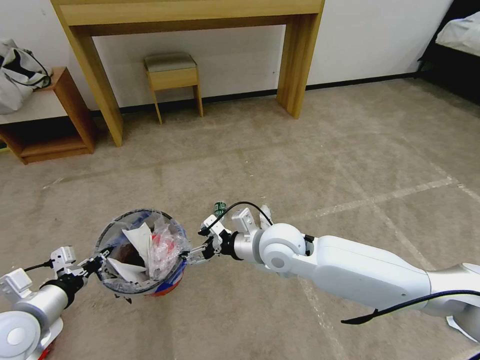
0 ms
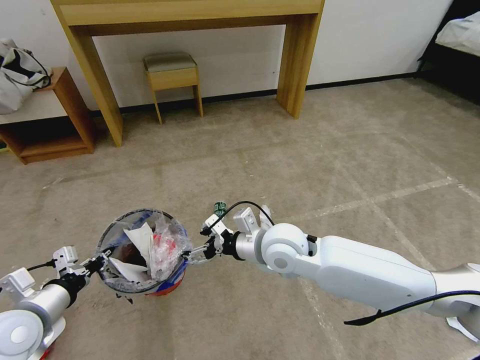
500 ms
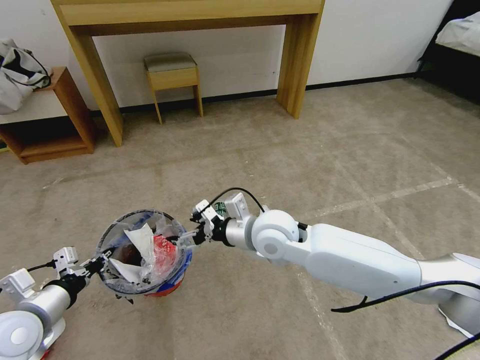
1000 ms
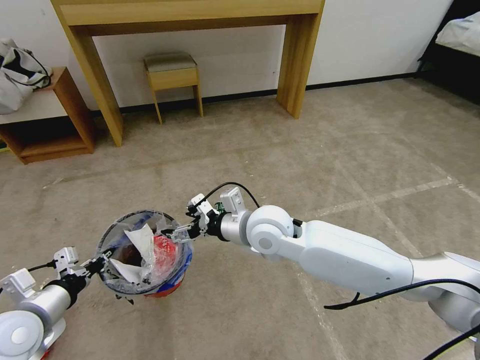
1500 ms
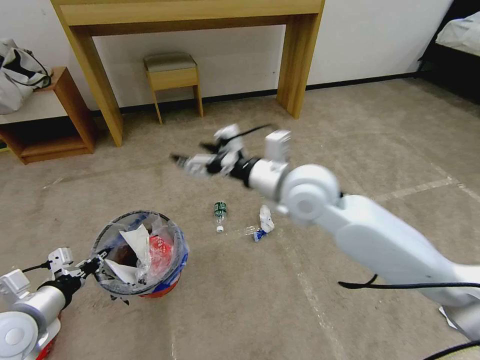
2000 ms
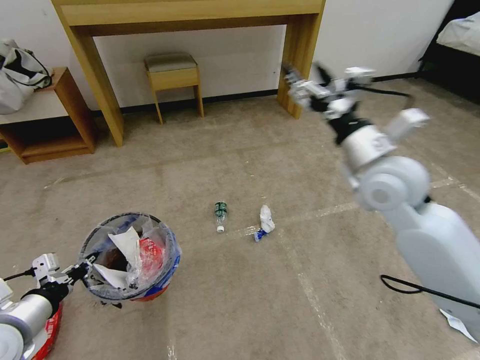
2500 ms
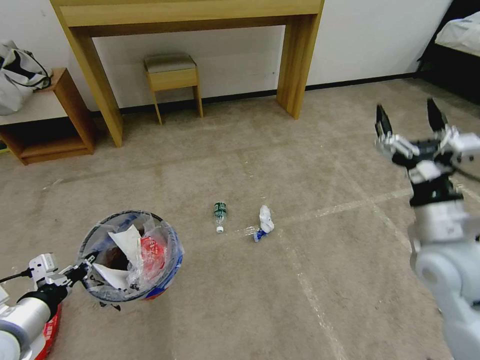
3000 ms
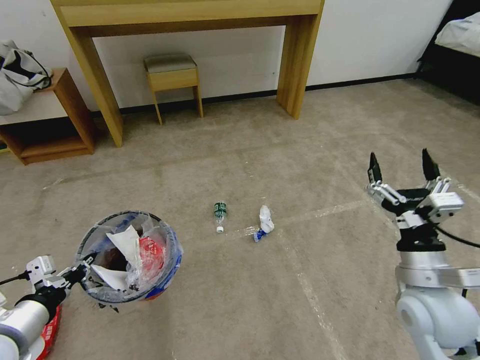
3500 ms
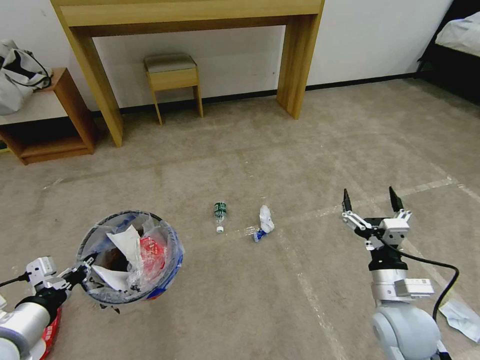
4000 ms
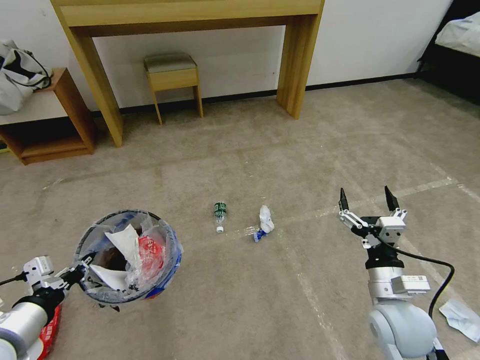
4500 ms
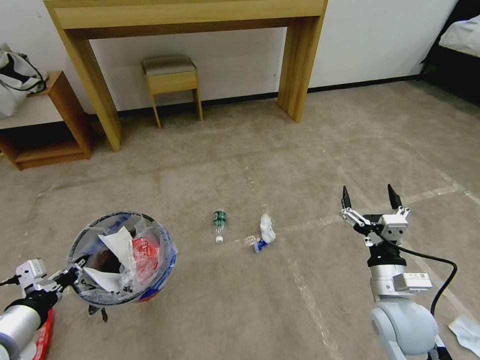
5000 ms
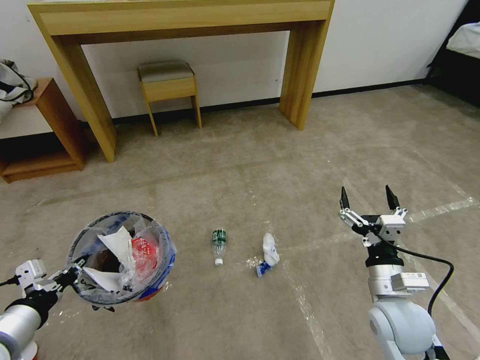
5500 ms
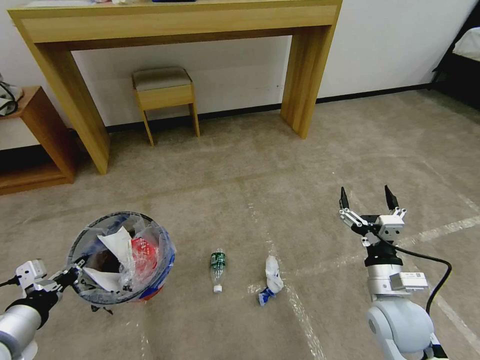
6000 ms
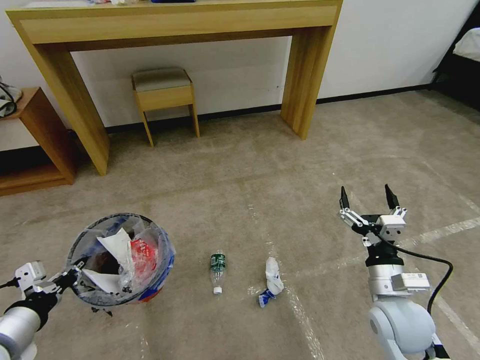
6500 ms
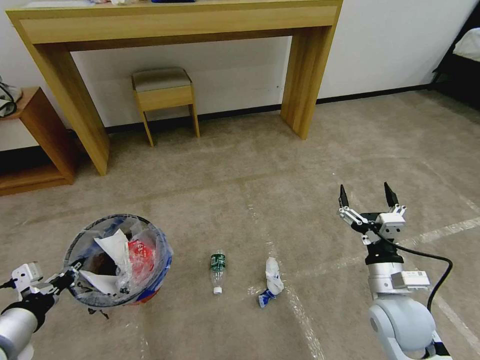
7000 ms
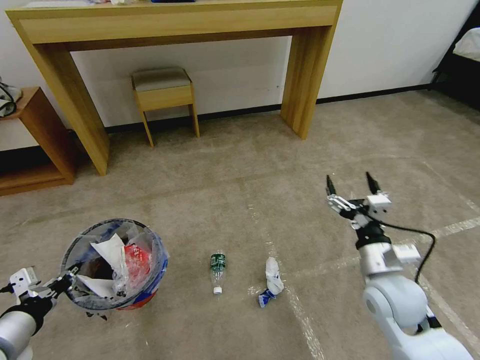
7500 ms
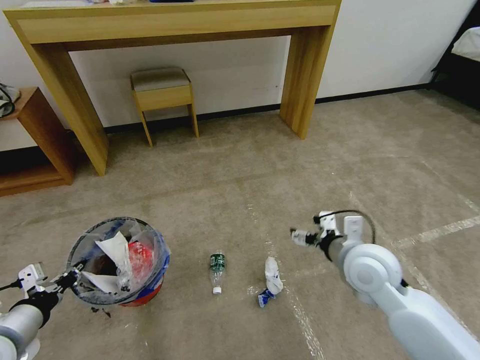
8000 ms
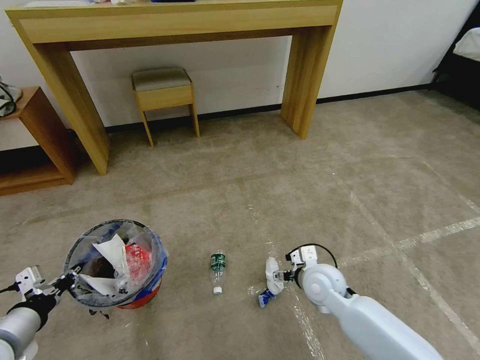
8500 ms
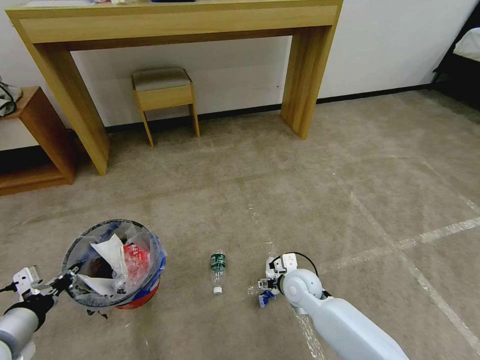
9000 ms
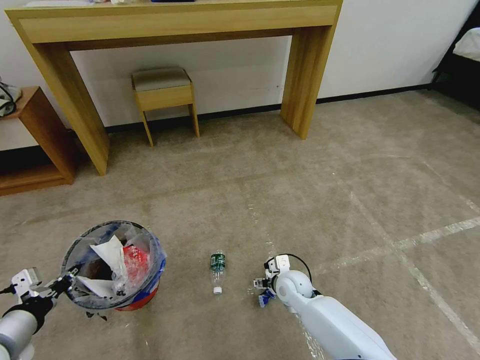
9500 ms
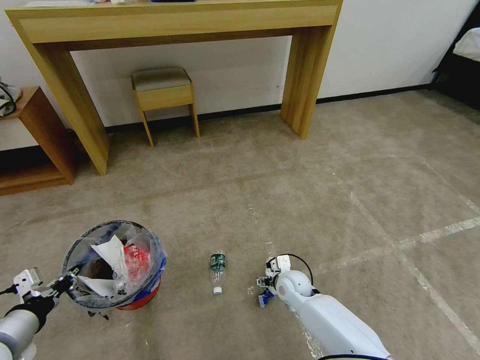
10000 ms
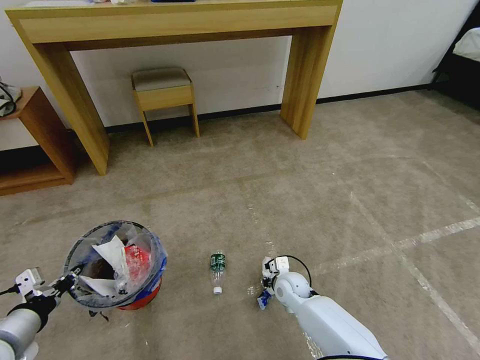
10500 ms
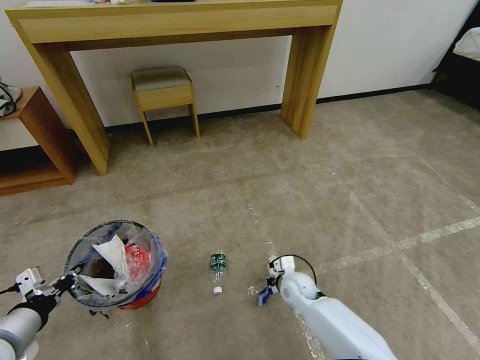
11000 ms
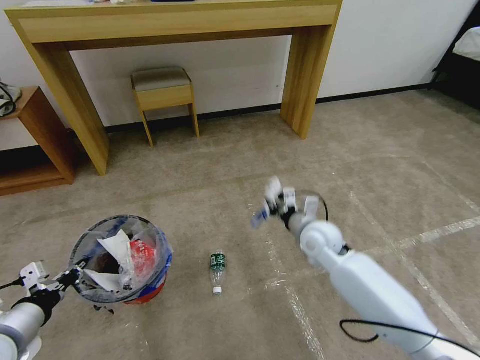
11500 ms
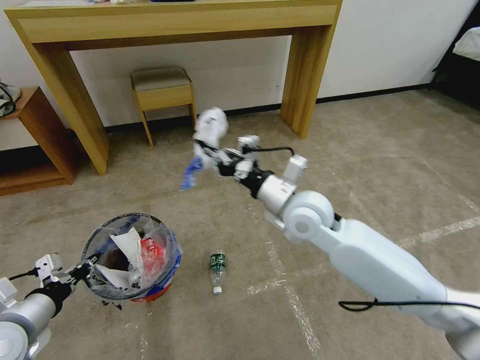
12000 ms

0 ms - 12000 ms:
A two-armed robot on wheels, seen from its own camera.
Task of the whole recording: Pick up the trash bin and place the garbage on the floor into it.
0 ms - 2000 ms: The right gripper is displaced upward by some 15 cm.
2000 ms - 4000 ms: The right gripper heads downward, to the right and backward, covering some 30 cm. Meanwhile the left gripper shifts by roughly 5 cm.
6000 ms - 8000 ms: The right gripper is displaced forward and upward by approximately 10 cm.
8000 ms - 10000 ms: The right gripper moves downward, roughly 25 cm.
10000 ms - 12000 ms: The right gripper moves upward, roughly 30 cm, and closes up.

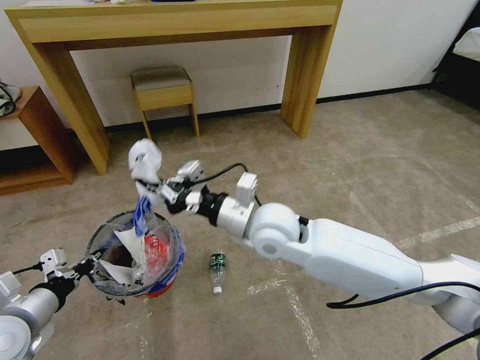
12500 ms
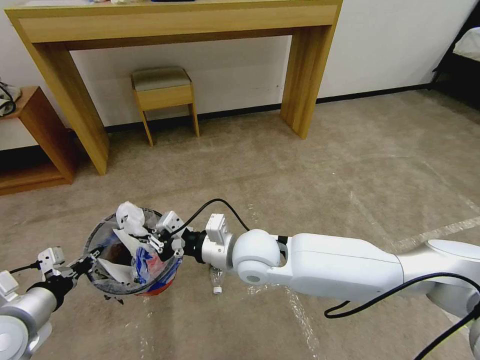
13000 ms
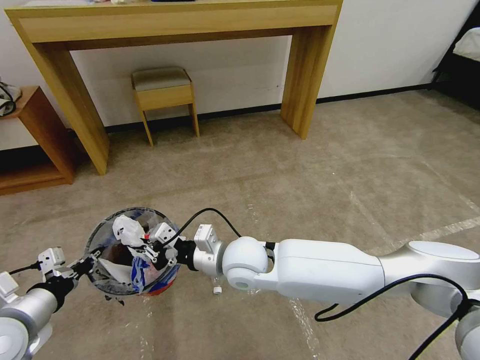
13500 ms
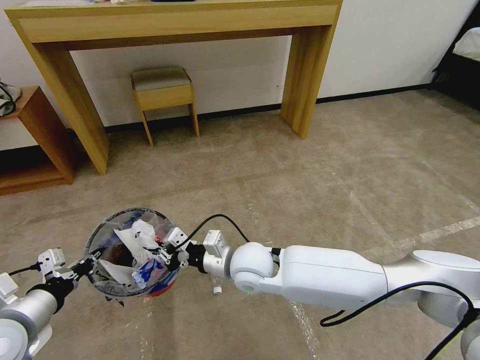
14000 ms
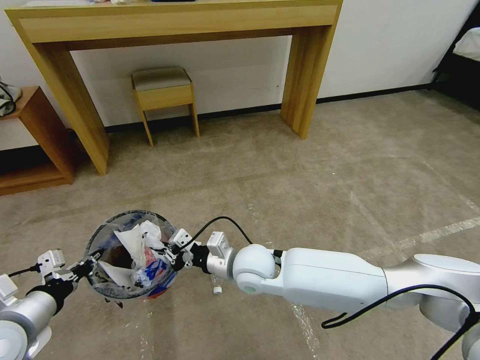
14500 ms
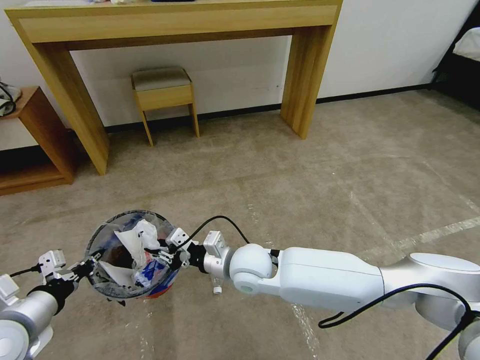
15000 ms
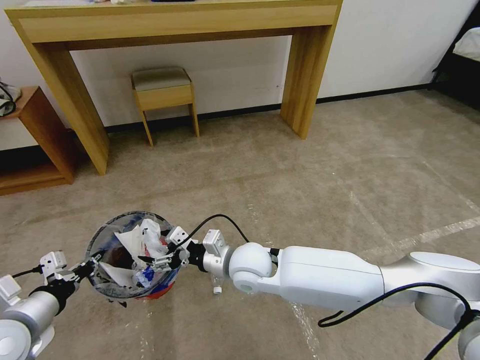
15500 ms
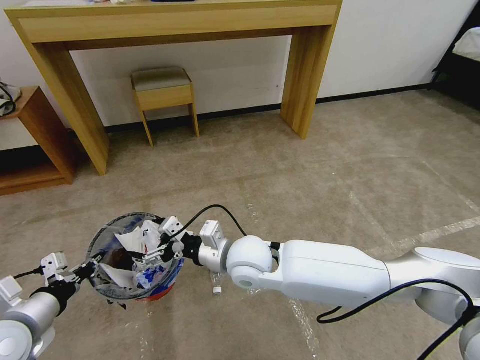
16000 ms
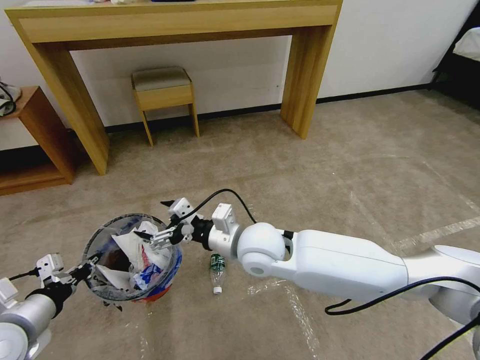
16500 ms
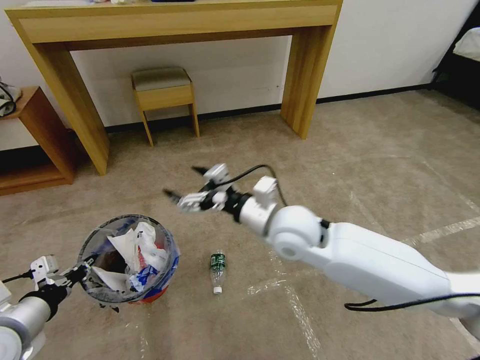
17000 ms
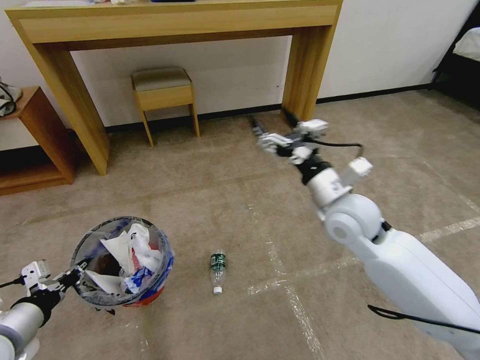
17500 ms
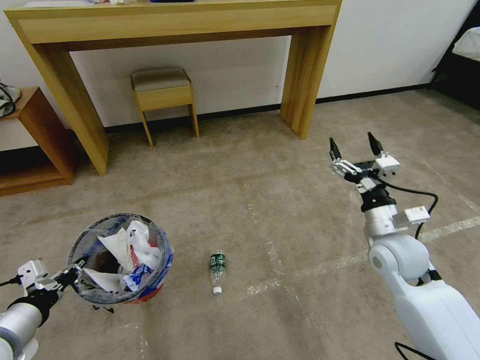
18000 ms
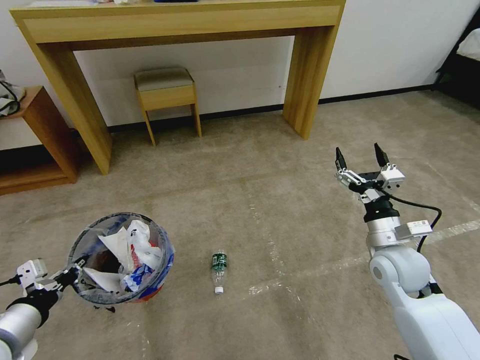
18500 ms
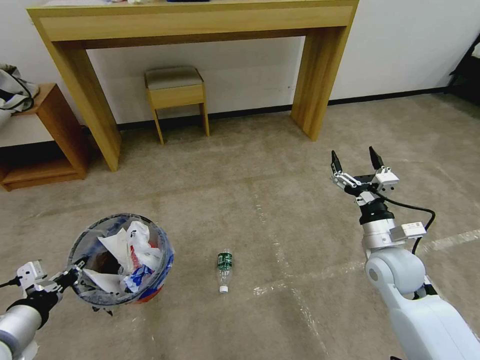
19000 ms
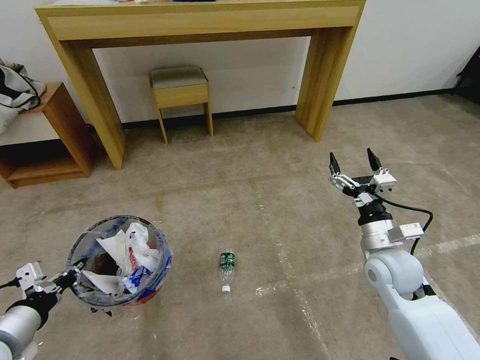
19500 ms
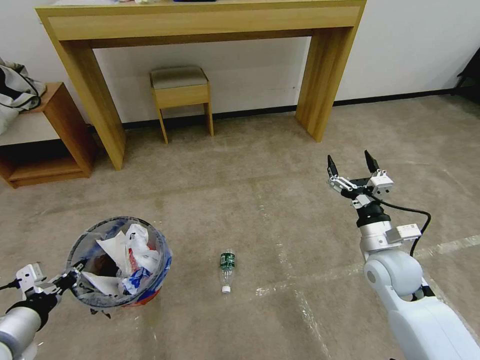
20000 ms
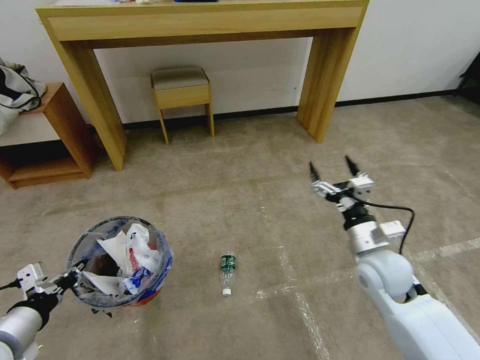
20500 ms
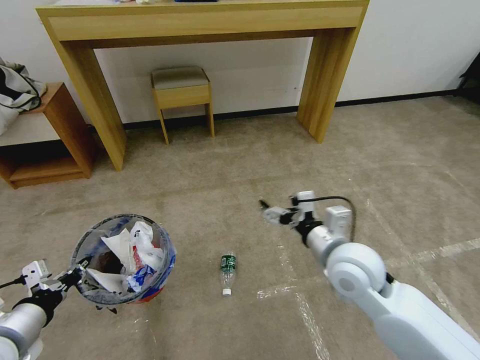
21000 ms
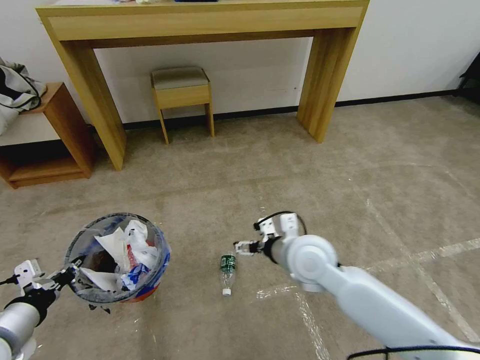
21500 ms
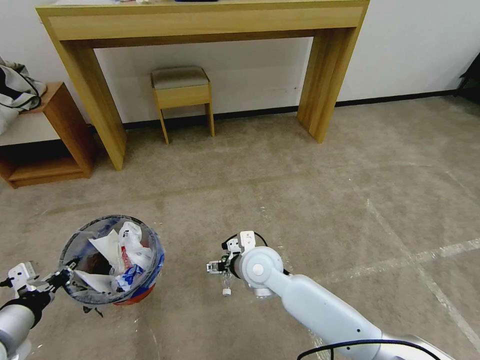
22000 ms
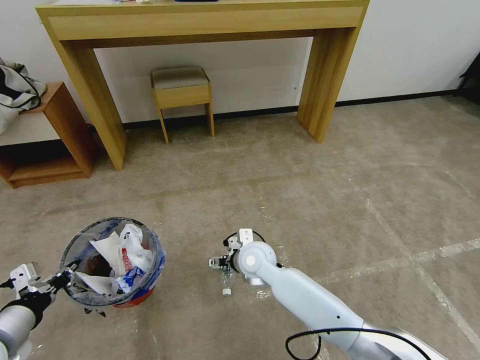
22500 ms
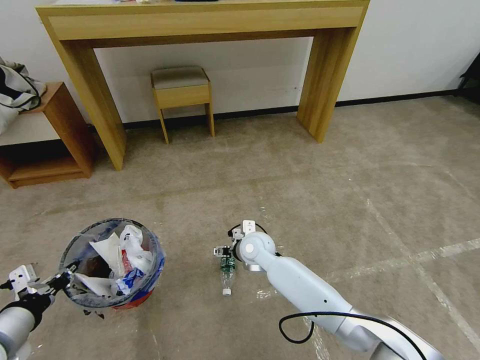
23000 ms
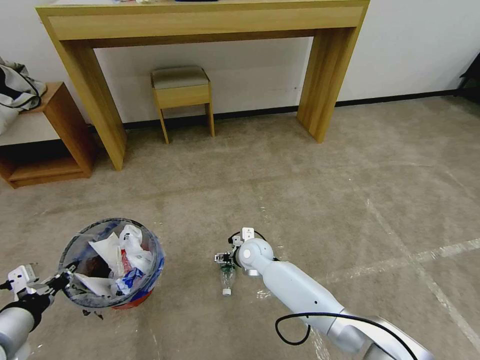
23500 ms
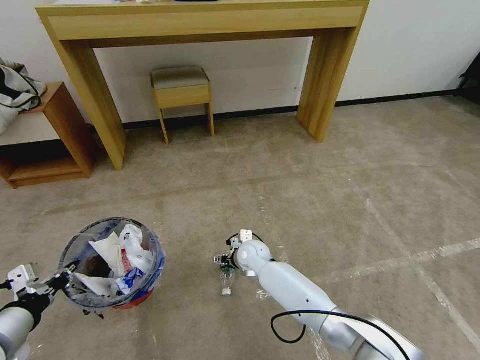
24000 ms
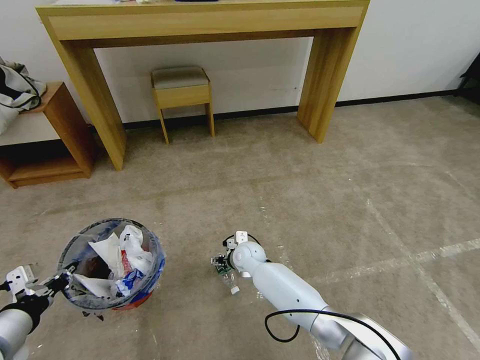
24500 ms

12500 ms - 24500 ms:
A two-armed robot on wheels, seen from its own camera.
Task of the whole recording: Pick up the trash bin and place the garbage on the floor into it.
12500 ms - 14500 ms: The right gripper shifts approximately 10 cm downward.
14500 ms - 16500 ms: The right gripper shifts about 10 cm upward, and opens up.
16500 ms - 18500 ms: The right gripper travels to the right by approximately 30 cm.
20500 ms - 22500 ms: The right gripper goes approximately 25 cm to the left.
22500 ms - 24500 ms: The right gripper moves downward and forward, approximately 10 cm.

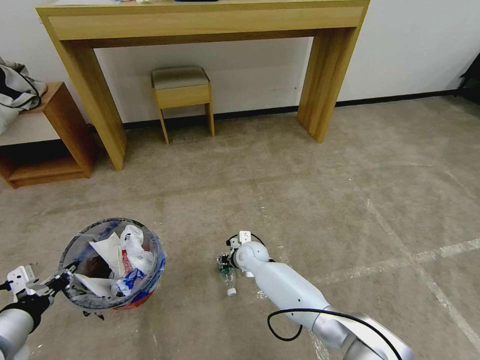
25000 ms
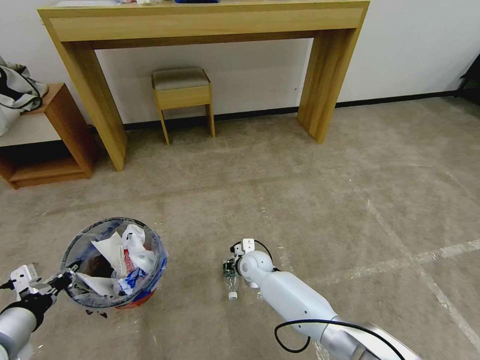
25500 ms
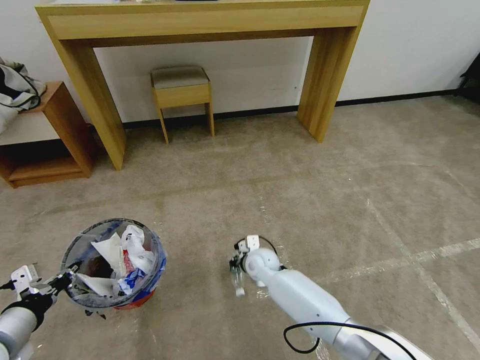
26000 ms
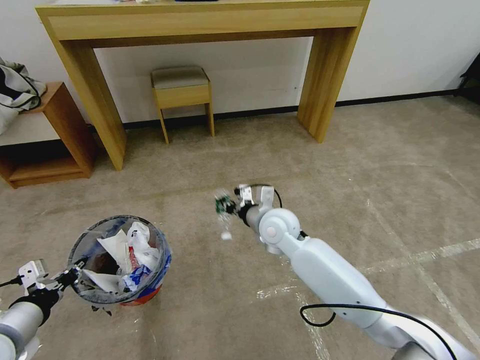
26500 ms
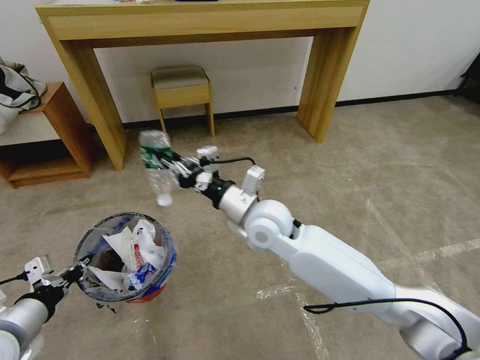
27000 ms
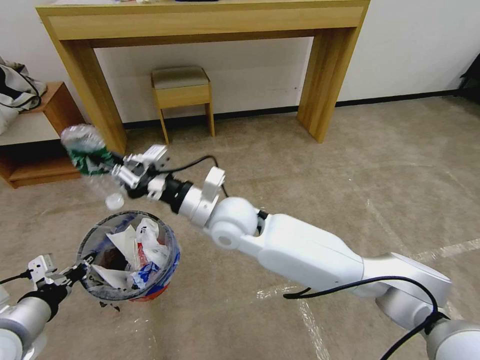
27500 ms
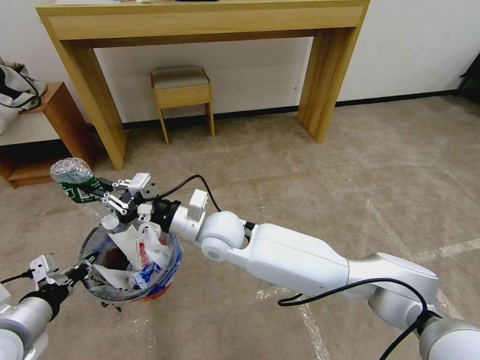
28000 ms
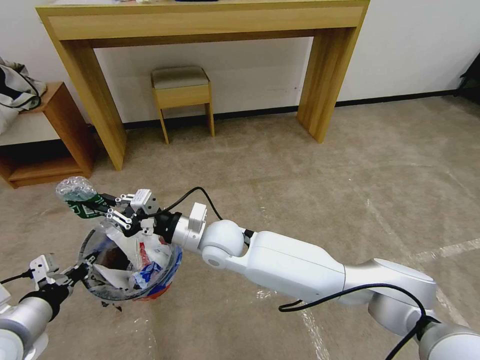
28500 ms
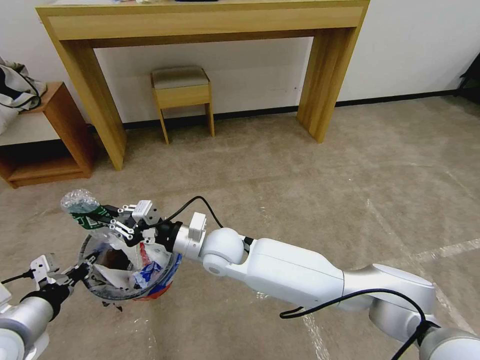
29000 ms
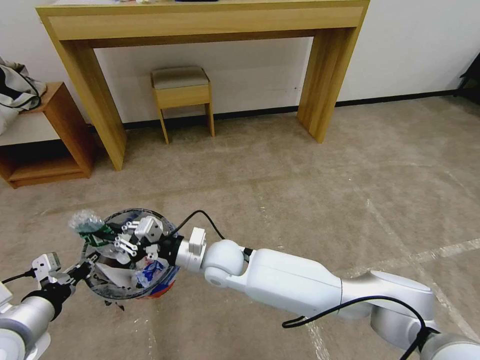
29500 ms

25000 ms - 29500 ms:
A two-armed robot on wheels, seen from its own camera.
Task of the whole recording: Pick up the trash bin and place the garbage on the floor into it.
25000 ms - 27000 ms: The right gripper moves upward, roughly 25 cm, and closes its fingers.
27000 ms - 29500 ms: The right gripper is displaced downward and to the left by about 15 cm.
